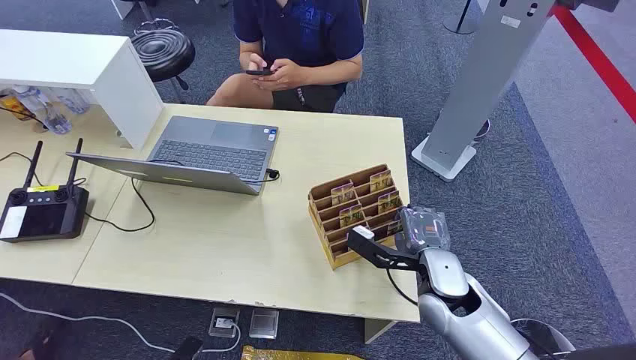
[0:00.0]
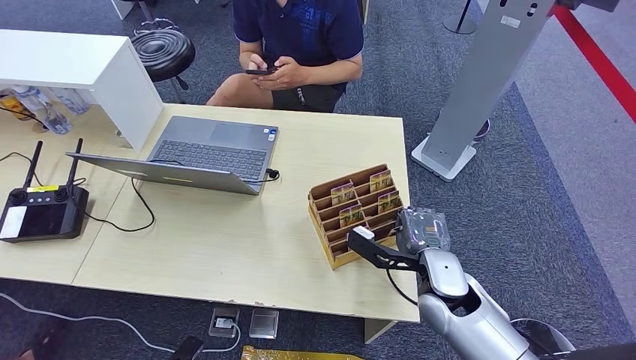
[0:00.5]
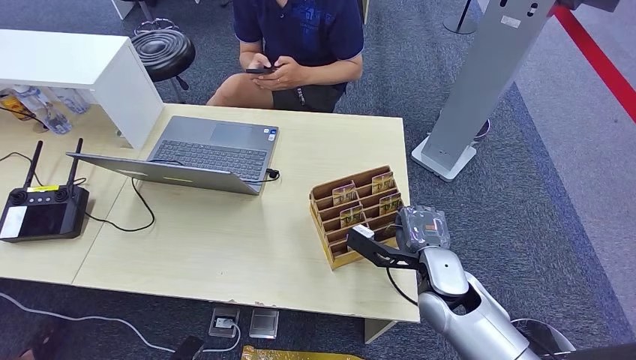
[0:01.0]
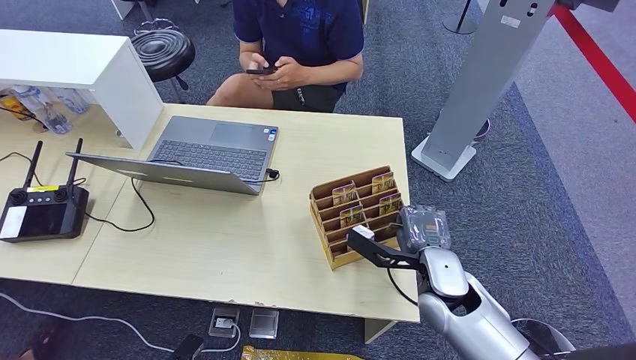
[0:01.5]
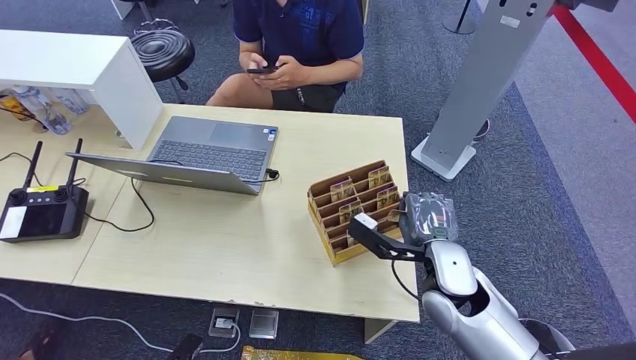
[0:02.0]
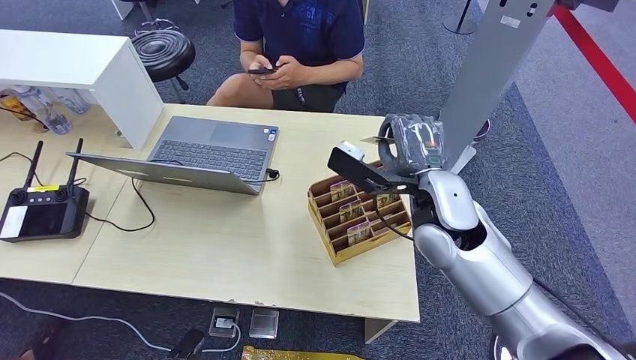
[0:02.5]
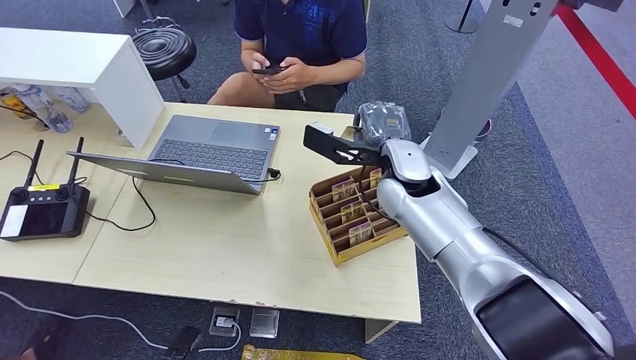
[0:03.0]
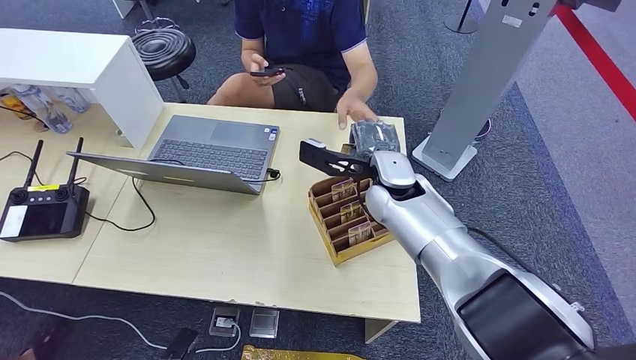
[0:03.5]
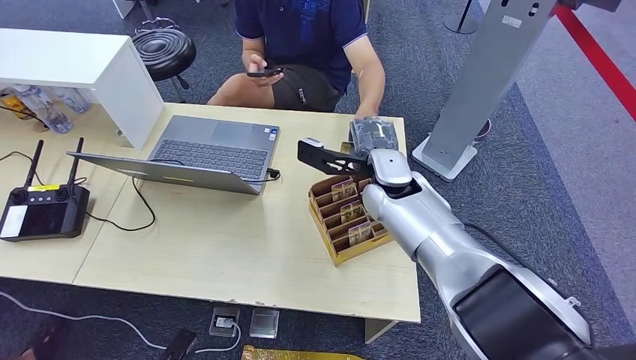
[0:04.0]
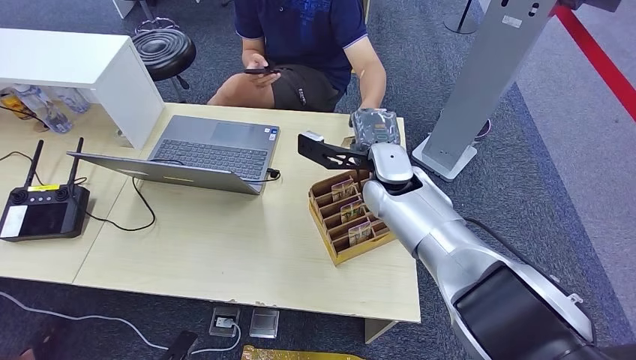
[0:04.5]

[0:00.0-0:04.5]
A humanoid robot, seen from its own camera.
Step, 0:00.0 to 0:01.5: Pick up the room card from the card holder.
Step, 0:03.0 to 0:04.5: Hand the room card to the target.
0:02.0 to 0:04.5: The right hand heads forward, to the left and upward, covering about 20 cm.
